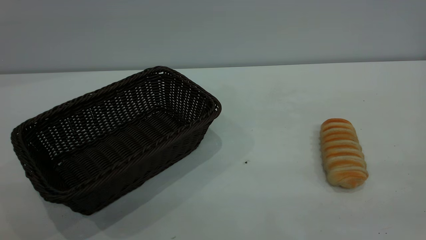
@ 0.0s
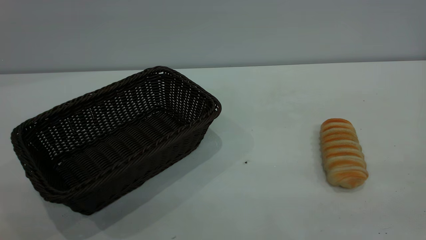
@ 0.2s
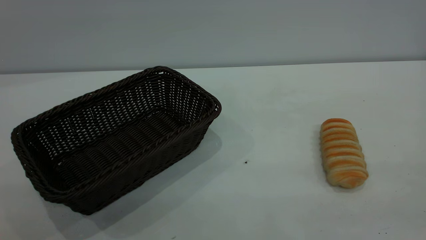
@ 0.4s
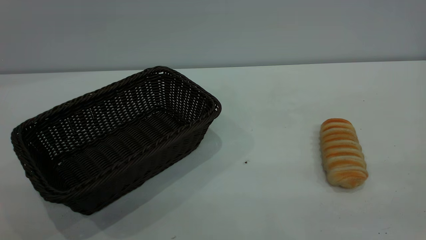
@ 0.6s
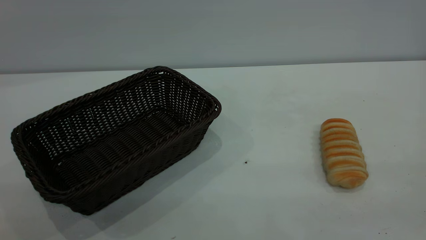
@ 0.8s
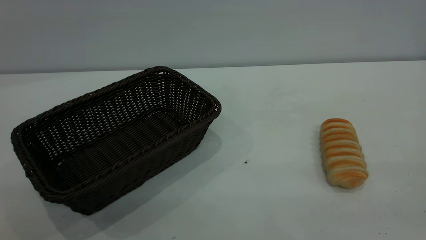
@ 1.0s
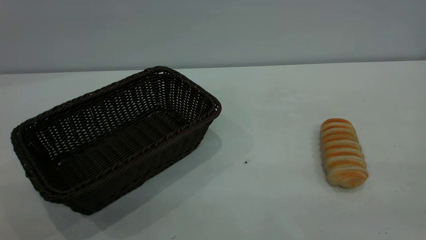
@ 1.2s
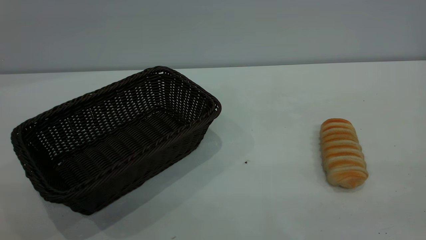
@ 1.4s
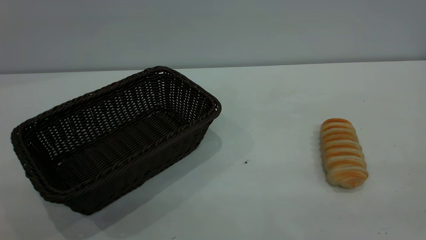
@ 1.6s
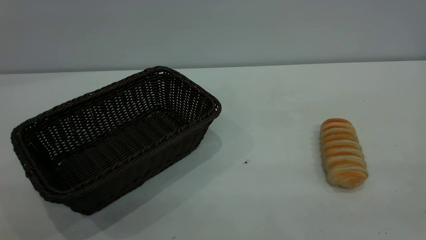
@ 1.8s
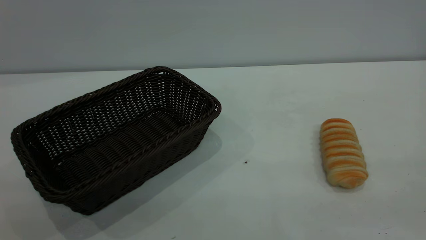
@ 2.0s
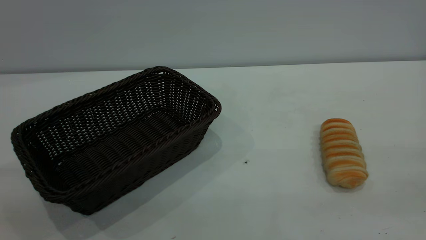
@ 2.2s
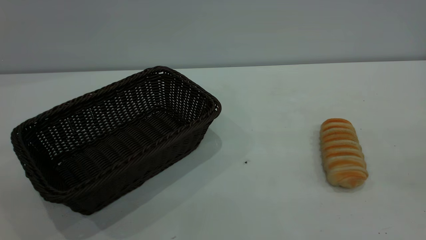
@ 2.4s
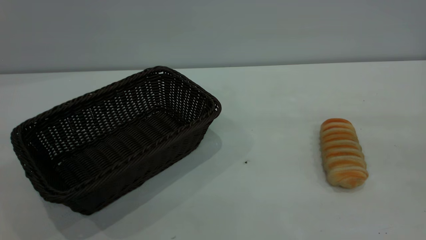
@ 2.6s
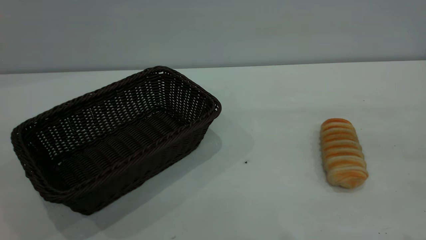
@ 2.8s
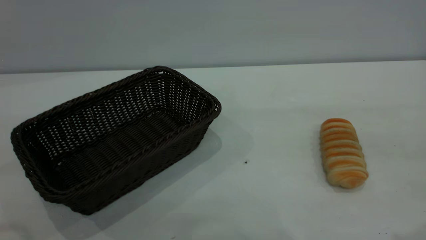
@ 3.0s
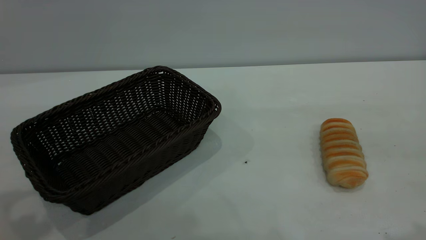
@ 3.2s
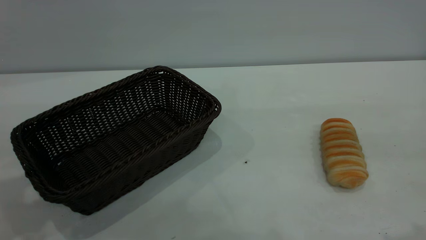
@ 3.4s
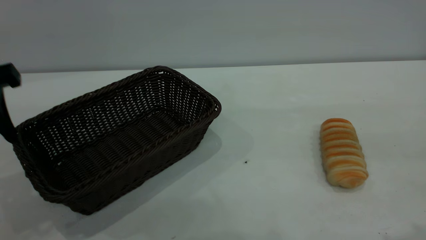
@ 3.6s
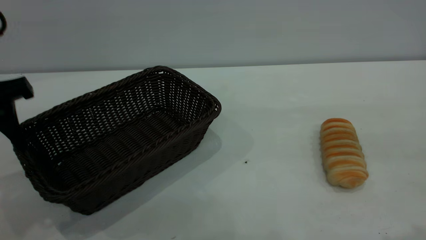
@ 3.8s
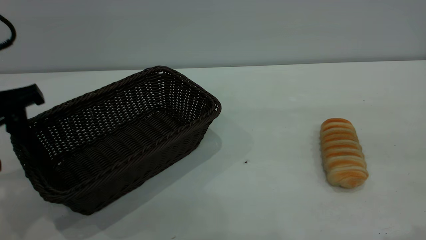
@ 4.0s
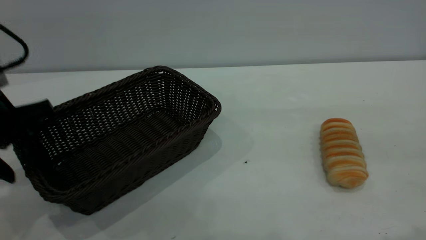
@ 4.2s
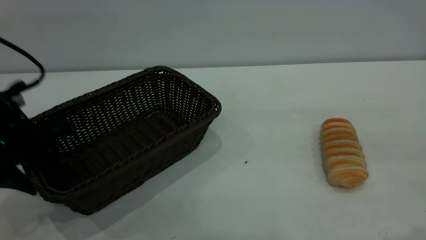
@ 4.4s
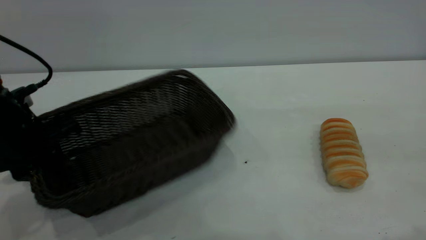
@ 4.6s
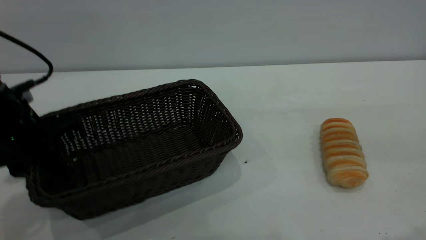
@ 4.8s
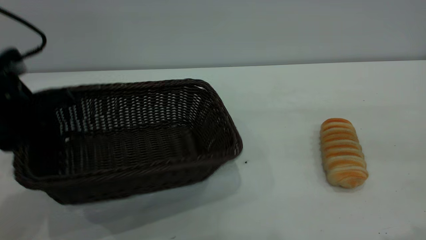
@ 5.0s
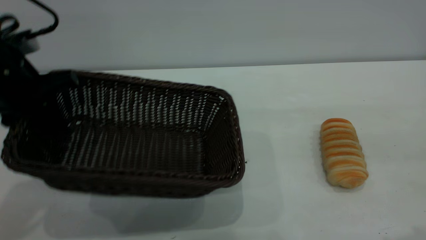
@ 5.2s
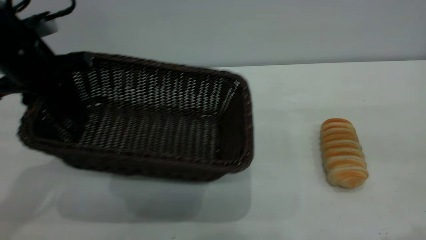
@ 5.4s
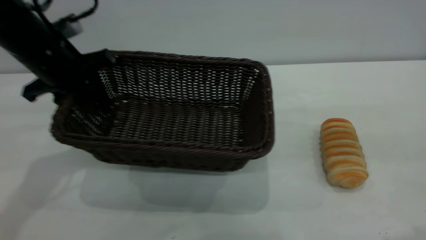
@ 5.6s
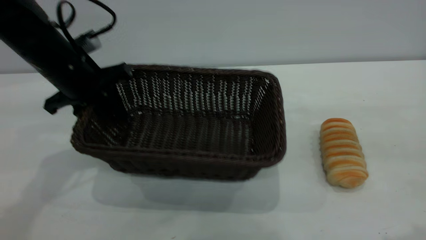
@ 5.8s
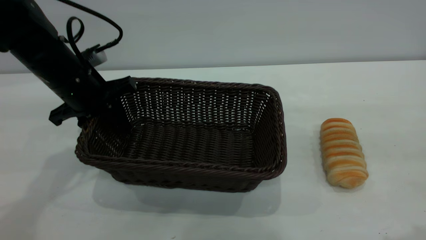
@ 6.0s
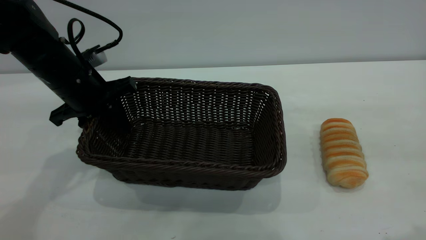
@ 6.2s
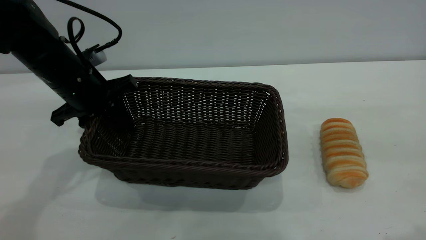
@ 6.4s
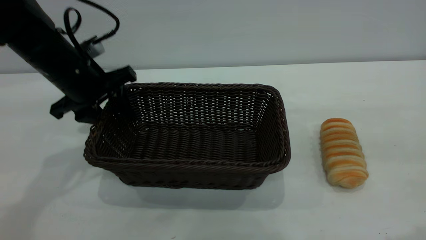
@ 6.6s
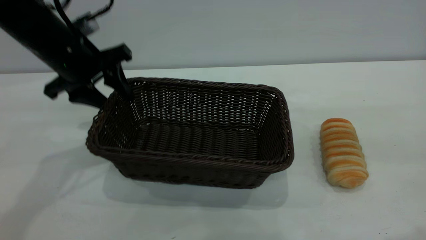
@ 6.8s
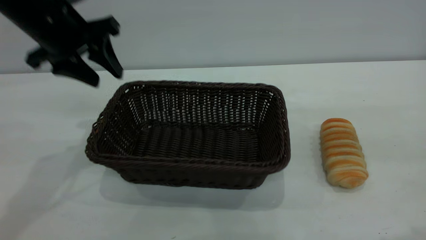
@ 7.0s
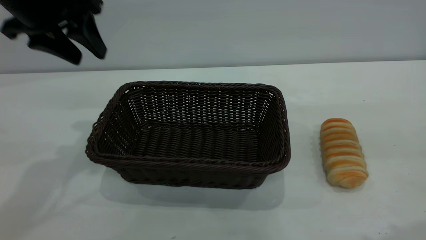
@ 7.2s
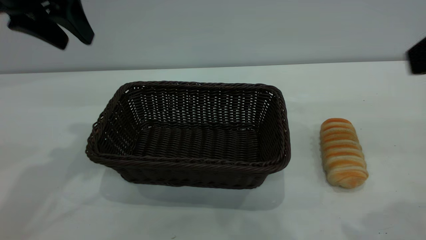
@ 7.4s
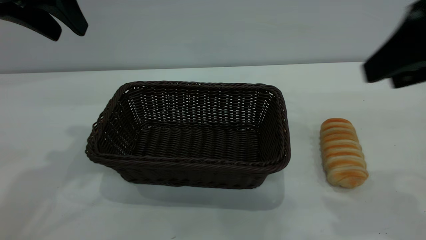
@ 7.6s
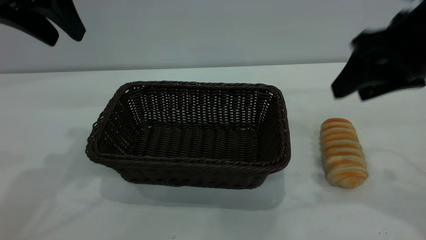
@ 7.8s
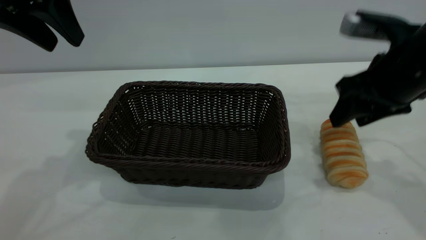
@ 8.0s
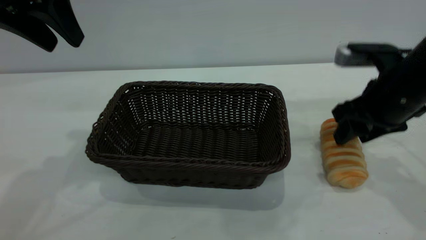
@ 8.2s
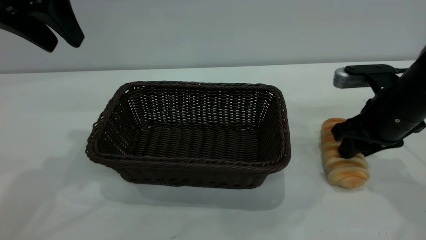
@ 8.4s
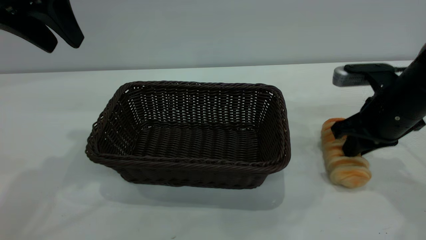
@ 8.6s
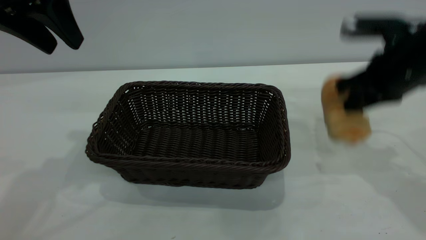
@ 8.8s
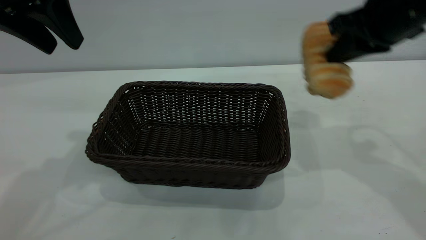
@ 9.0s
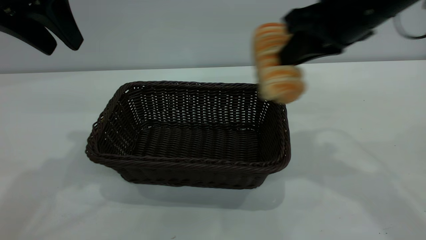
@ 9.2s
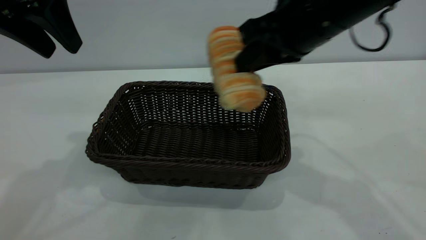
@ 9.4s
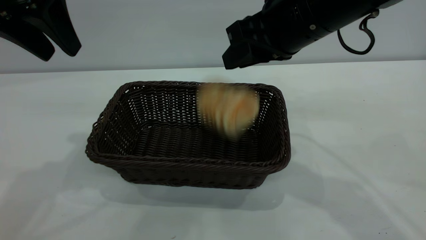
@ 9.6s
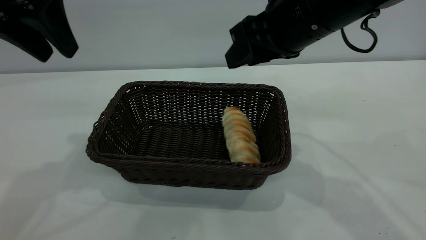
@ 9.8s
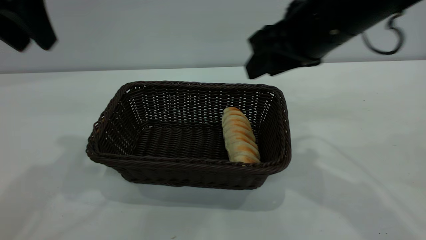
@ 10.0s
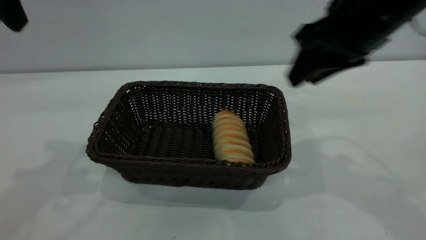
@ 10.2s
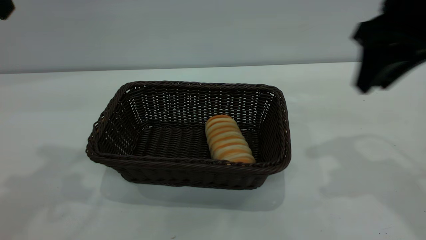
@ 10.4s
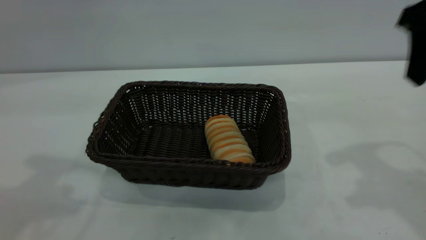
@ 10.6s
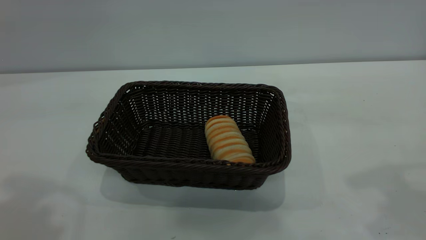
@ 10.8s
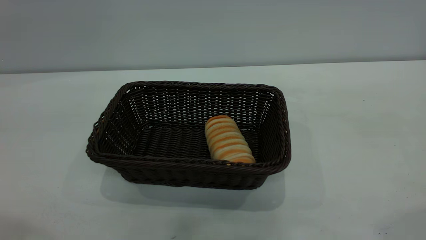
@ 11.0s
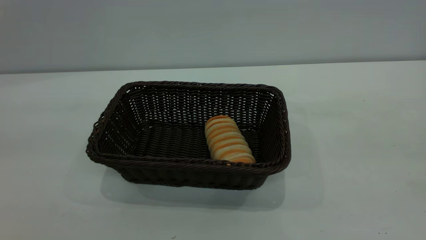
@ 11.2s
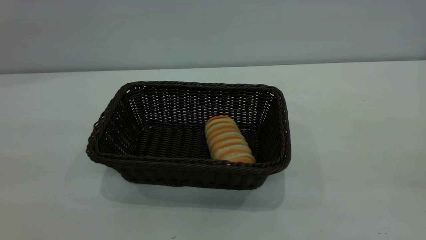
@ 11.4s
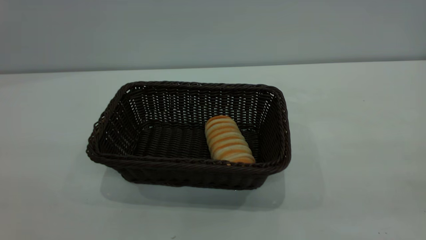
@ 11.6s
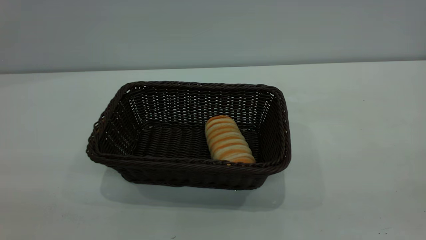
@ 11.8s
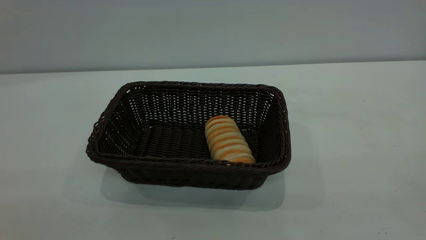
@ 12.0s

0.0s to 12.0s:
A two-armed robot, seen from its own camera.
Task of the whole recording: One hand grasps the black basket and places it in the middle of the table, while the other hand picks up the long bread and puts it into the black basket.
Step, 0.0s to 7.0s: Move the basket to the center of view.
Step, 9.0s to 10.0s: place the bread into the basket.
0.0s to 1.6s: Both grippers stay about where they are.
3.0s to 4.4s: The left gripper shifts some 25 cm downward and forward.
4.4s to 6.0s: The left gripper moves forward and to the right, approximately 10 cm, and closes its fingers.
6.0s to 7.6s: The right gripper heads forward and downward, covering some 10 cm, while the left gripper is displaced upward by approximately 20 cm, and opens up.
7.6s to 9.0s: The right gripper moves forward, approximately 10 cm, moves roughly 15 cm downward and comes back, and closes its fingers.
9.0s to 10.4s: The left gripper moves upward, roughly 5 cm; the right gripper moves about 10 cm to the left and comes back, and opens.
10.4s to 12.0s: The right gripper moves backward, approximately 30 cm.

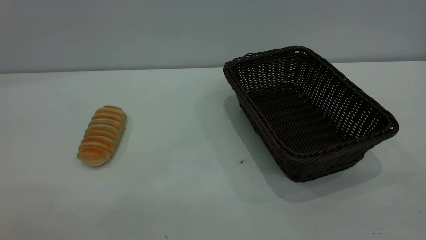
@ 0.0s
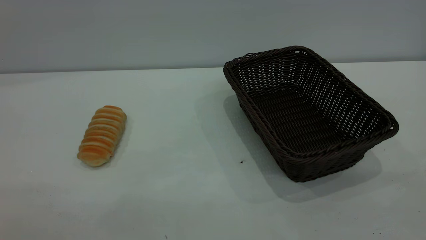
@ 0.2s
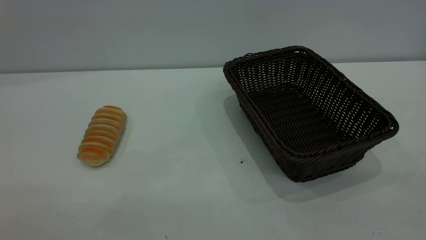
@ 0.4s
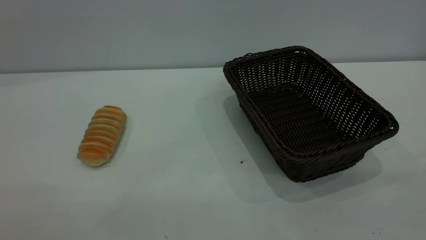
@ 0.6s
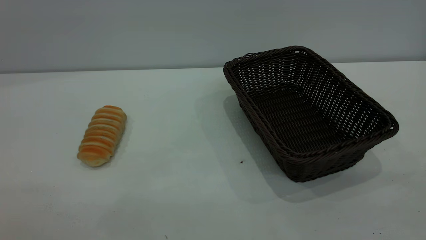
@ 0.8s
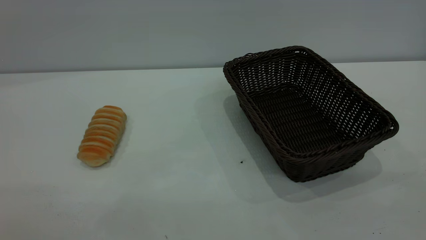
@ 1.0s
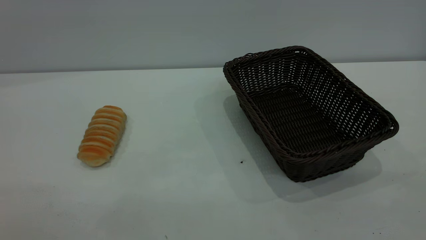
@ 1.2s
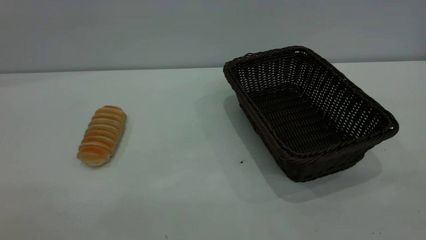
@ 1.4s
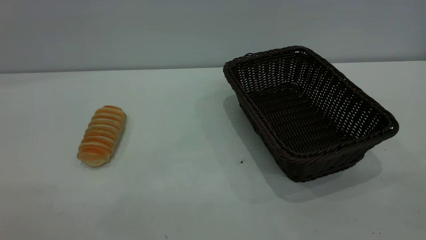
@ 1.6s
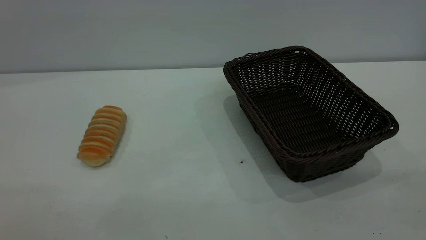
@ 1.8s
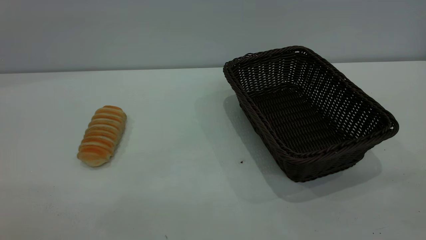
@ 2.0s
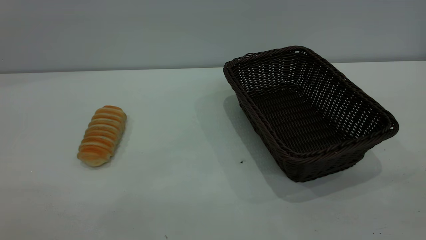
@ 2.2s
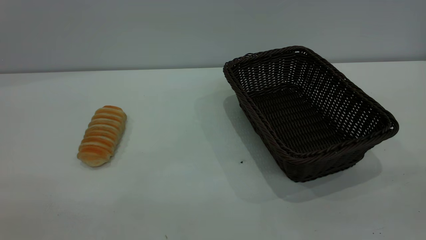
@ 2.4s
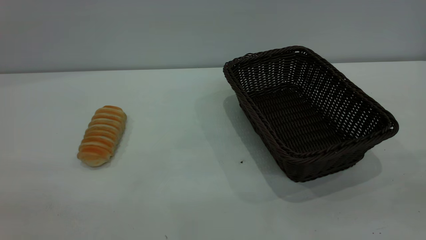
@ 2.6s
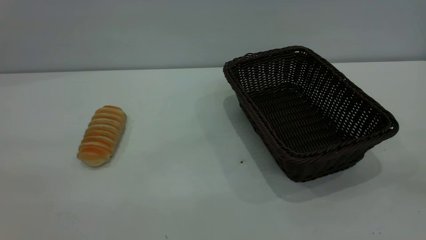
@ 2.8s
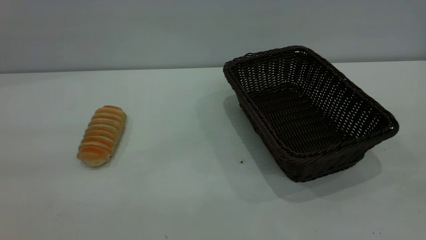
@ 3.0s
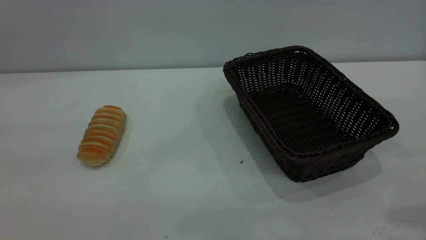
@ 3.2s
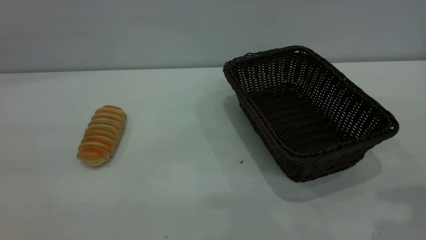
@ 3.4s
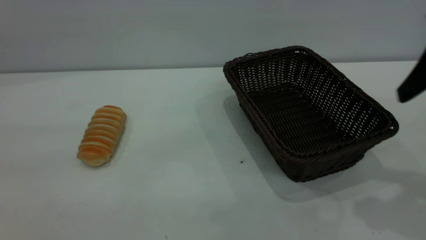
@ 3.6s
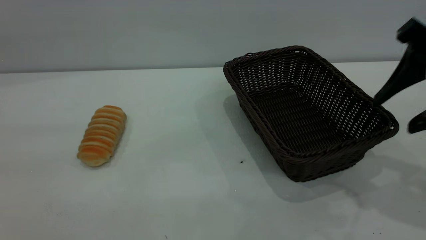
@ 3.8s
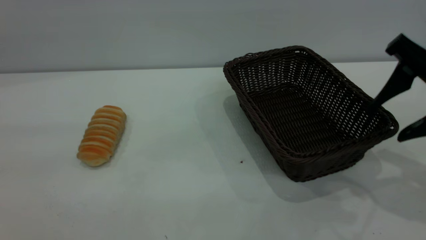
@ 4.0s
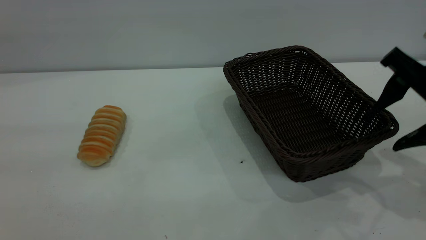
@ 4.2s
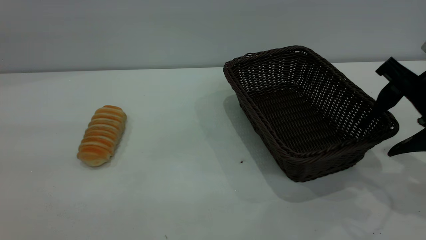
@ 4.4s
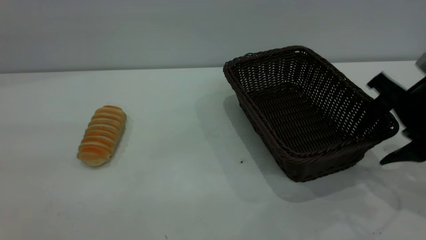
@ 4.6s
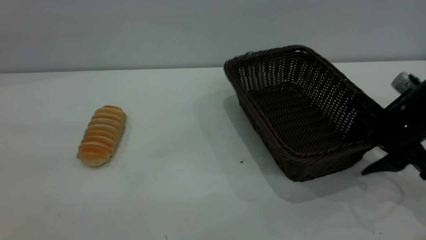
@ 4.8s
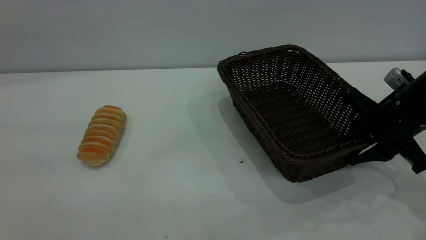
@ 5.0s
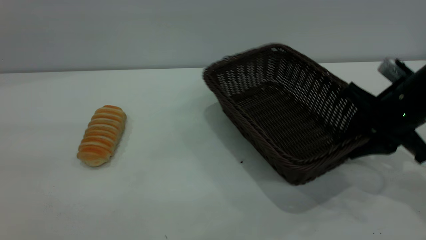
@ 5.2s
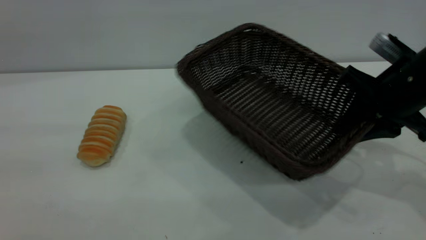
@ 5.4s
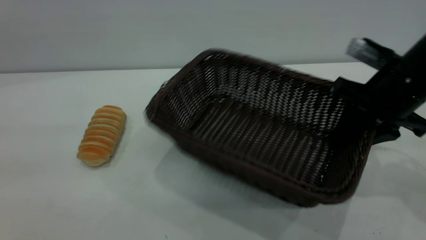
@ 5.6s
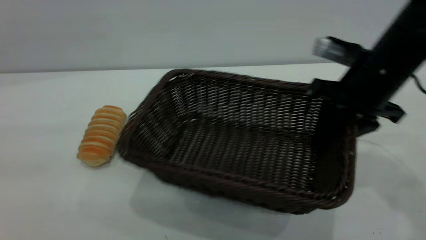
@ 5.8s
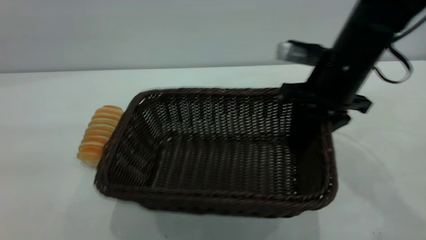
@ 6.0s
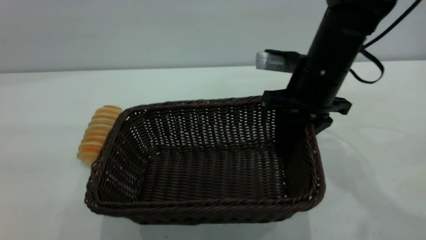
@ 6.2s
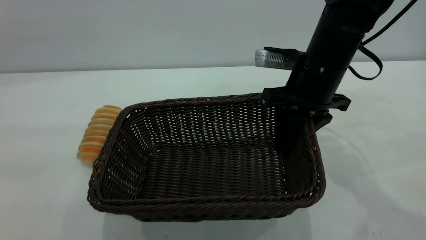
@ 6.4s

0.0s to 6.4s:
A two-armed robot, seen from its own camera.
Task of the whole recording: One hand grasps the black basket and places it in the middle of the table, while the other hand picks up the long bread and puts it into the black basket.
0.0s to 1.6s: Neither gripper changes place.
3.2s to 4.8s: The right gripper heads downward and forward, covering approximately 25 cm, and closes.
4.8s to 6.4s: The right gripper moves to the left and forward, approximately 15 cm.
